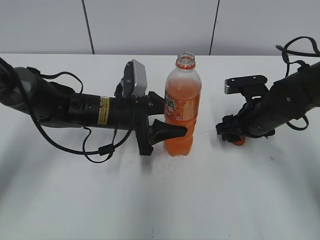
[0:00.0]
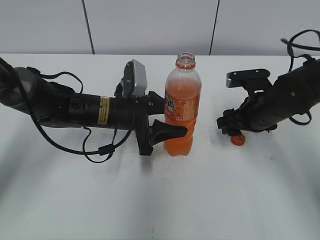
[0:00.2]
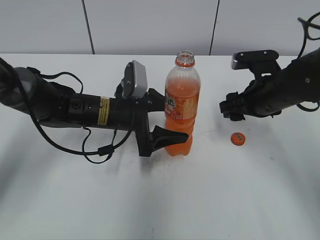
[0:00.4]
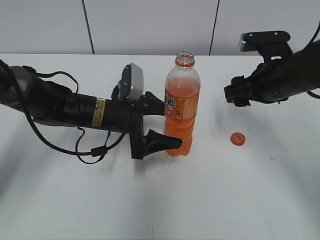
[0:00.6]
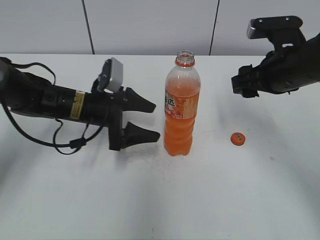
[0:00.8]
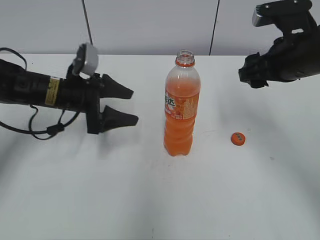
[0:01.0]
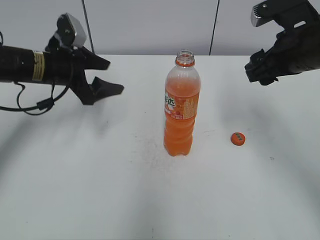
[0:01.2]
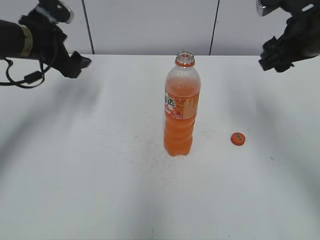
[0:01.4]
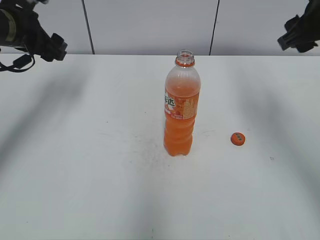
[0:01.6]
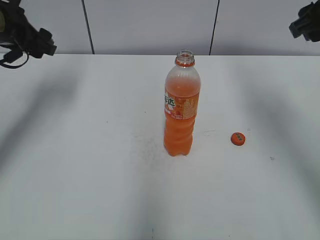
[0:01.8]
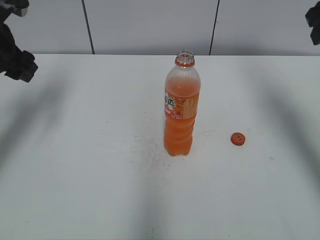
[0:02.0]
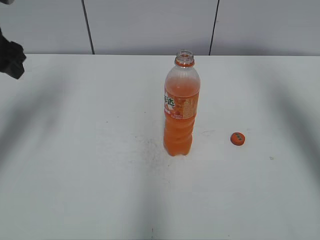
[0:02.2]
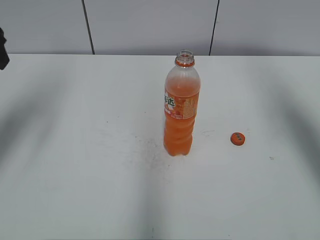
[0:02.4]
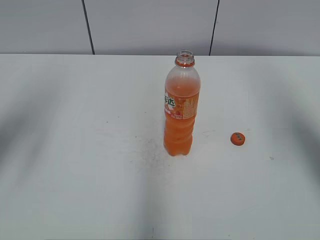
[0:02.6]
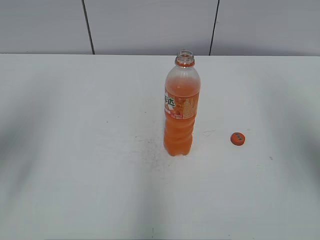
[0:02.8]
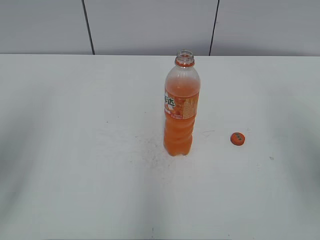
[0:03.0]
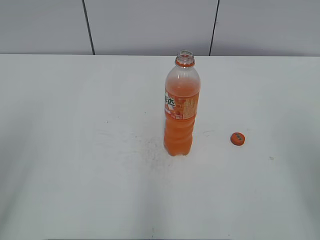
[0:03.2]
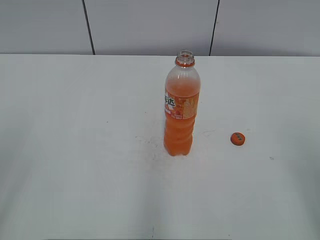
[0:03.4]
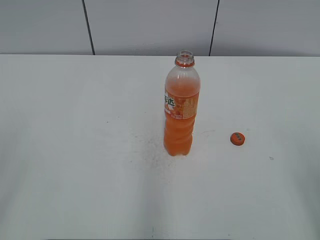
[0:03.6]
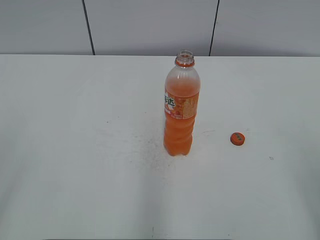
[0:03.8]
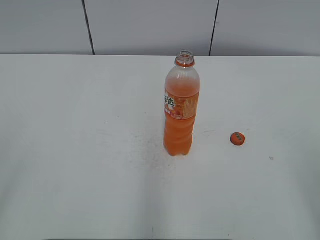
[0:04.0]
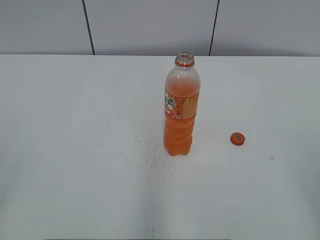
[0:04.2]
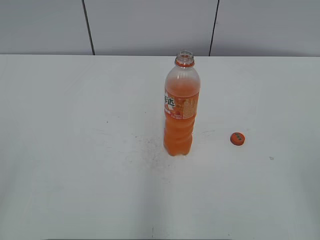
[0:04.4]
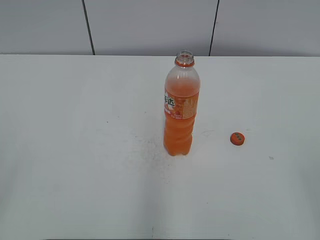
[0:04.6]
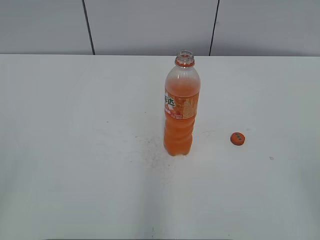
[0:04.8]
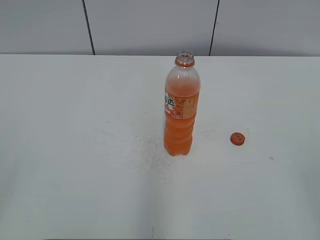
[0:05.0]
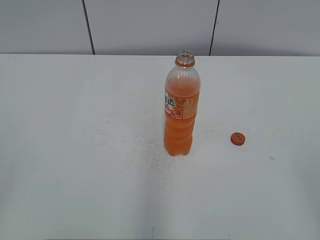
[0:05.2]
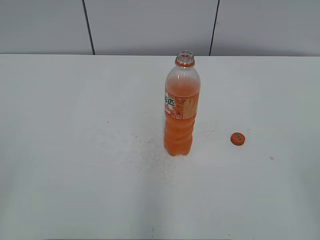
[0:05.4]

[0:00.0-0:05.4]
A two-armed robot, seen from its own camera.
0:00.0 to 0:01.4: The right gripper is displaced upward by roughly 15 cm, while the left gripper shifts some 20 cm to the left, upward and forward, and opens its fingers.
0:01.4 to 0:02.8: The left gripper moves backward and upward, some 20 cm; the right gripper heads backward, upward and to the right, covering about 15 cm.
0:02.8 to 0:04.0: The left gripper is displaced backward by some 20 cm. The right gripper shifts approximately 20 cm backward and downward.

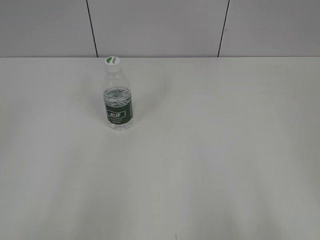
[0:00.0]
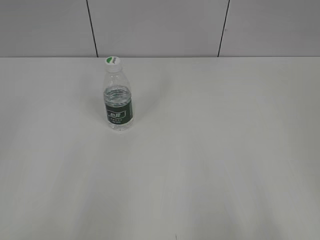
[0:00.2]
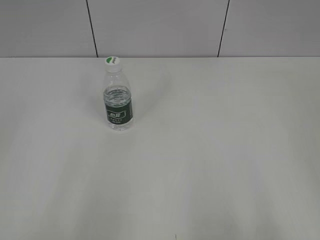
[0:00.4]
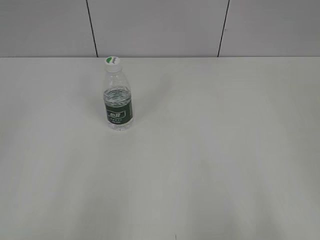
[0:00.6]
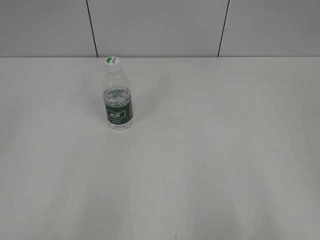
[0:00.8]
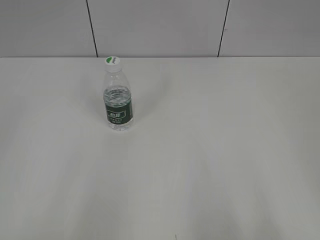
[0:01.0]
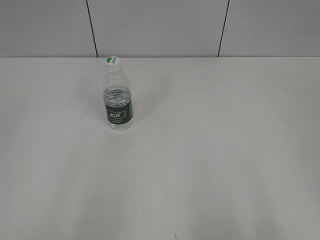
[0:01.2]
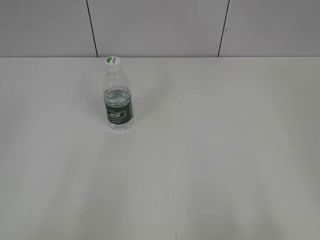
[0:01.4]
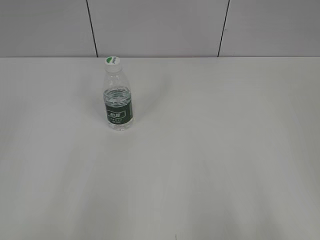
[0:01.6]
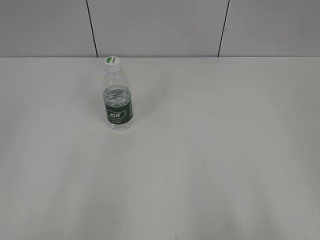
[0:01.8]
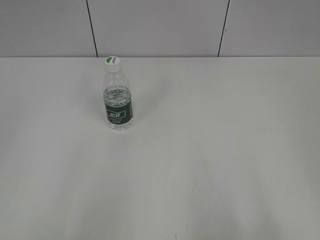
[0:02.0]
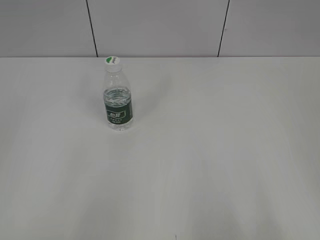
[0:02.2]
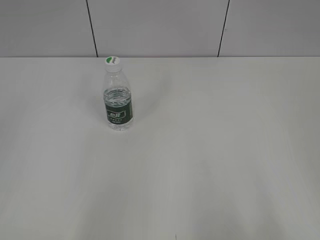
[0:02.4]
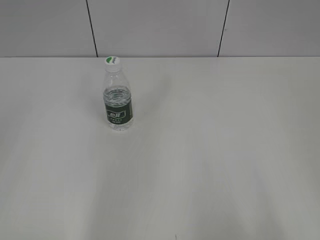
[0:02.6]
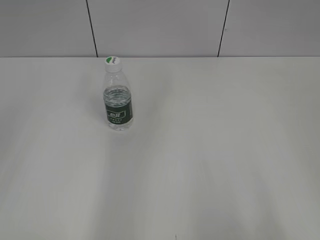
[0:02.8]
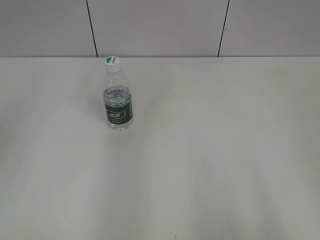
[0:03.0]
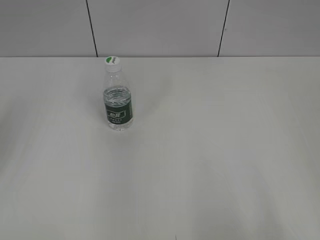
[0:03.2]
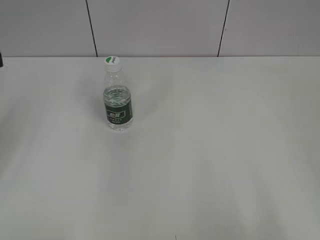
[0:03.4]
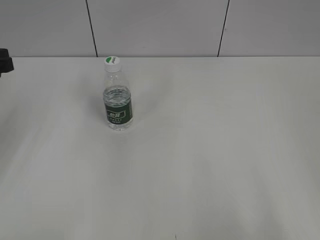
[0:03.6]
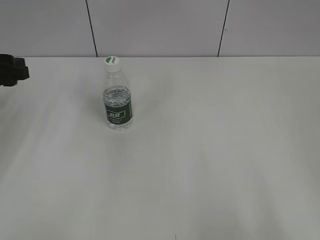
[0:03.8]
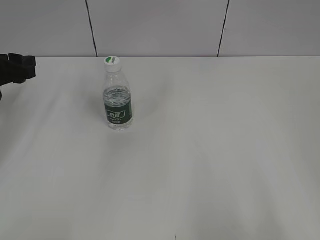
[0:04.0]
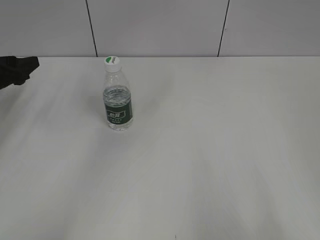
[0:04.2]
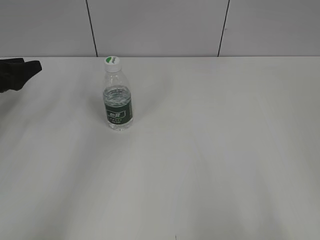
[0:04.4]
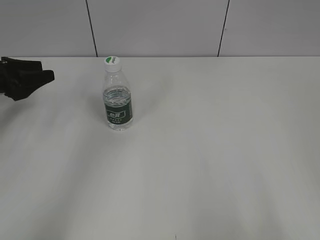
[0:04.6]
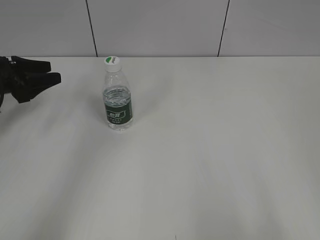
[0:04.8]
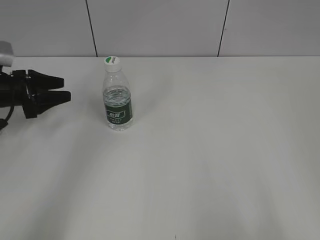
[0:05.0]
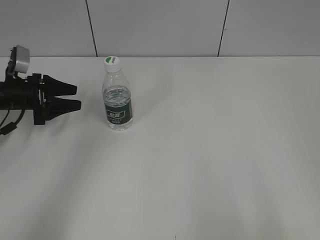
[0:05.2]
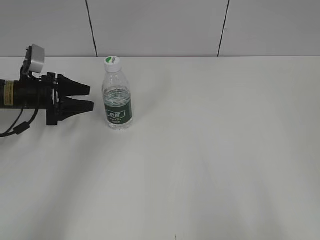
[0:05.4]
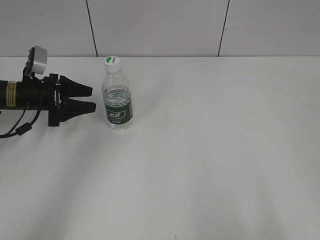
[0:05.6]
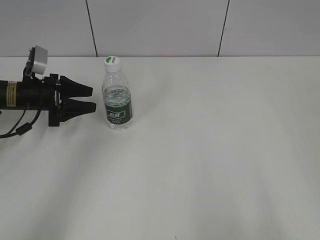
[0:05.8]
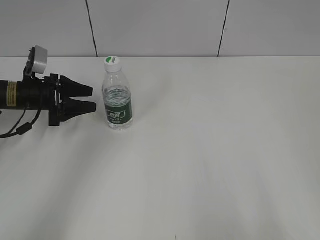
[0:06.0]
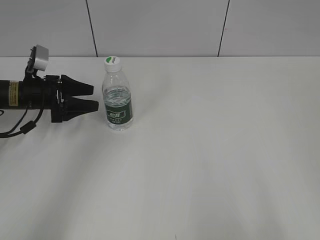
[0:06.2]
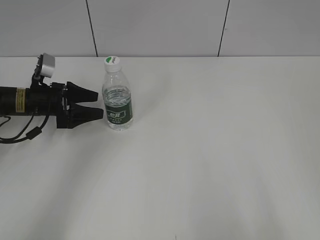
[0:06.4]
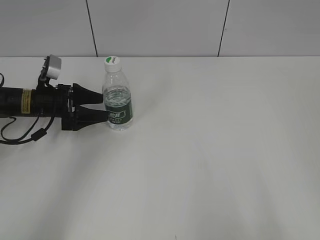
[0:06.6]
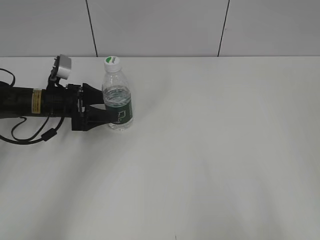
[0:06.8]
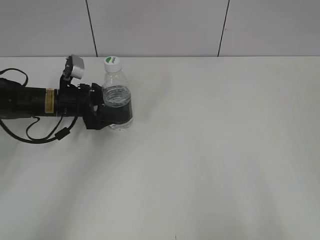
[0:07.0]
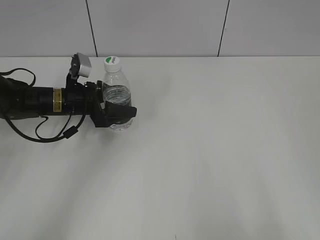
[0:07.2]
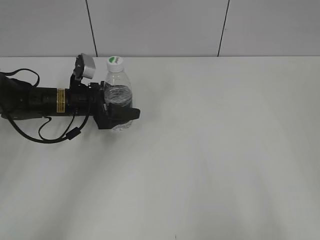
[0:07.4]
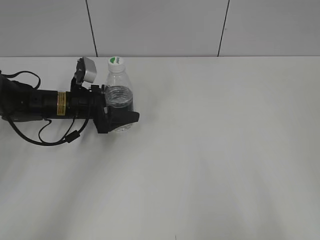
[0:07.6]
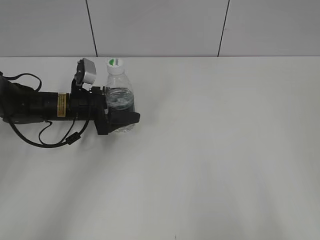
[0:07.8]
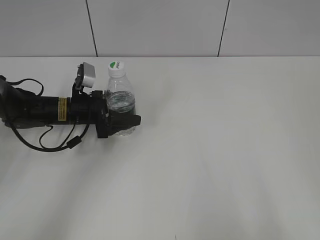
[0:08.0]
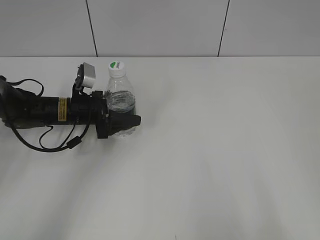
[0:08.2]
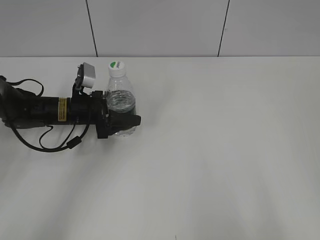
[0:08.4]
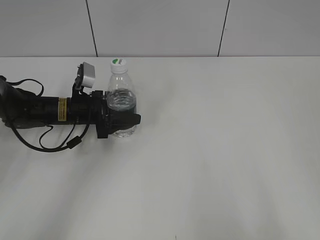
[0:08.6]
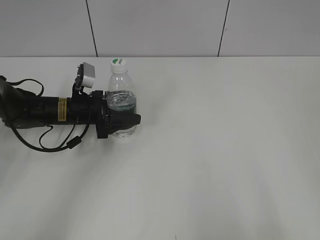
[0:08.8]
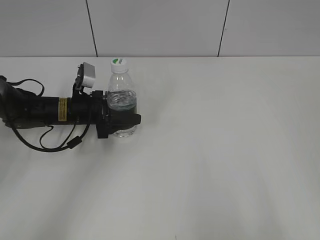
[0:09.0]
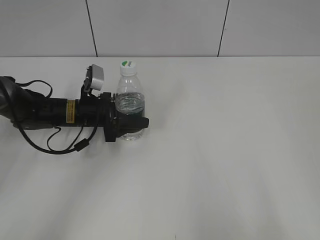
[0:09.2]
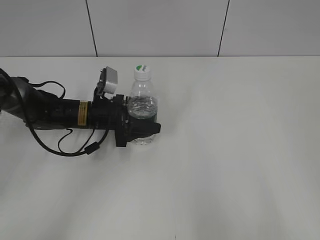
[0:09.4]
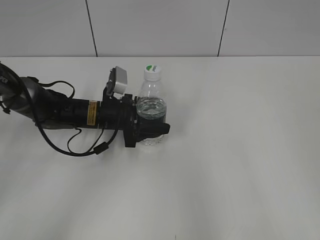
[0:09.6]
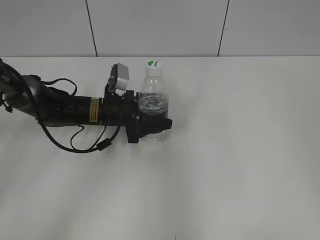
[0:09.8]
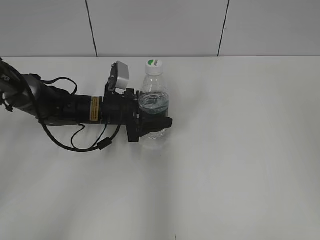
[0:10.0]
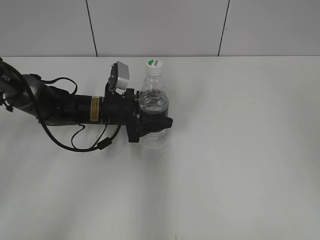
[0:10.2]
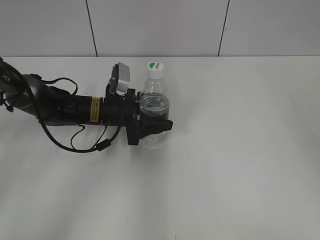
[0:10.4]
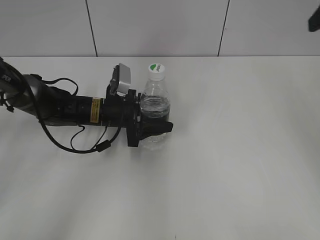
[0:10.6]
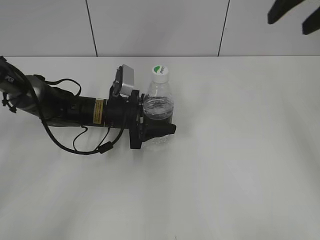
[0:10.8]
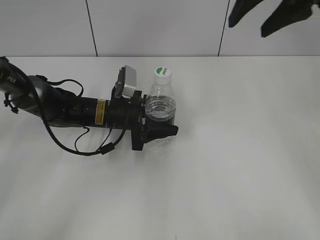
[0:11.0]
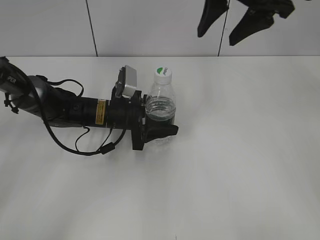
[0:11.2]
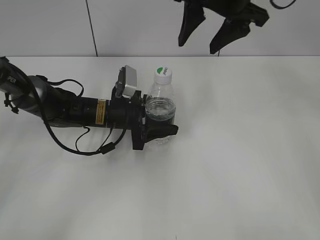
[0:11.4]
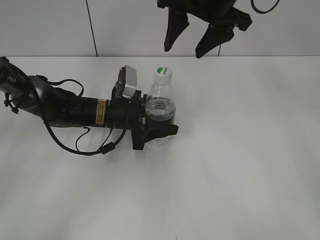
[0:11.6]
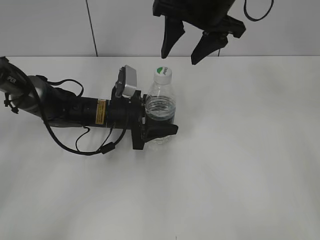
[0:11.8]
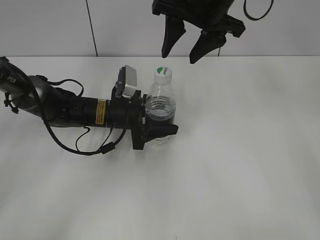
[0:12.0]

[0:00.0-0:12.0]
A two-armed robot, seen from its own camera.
Step, 0:00.0 to 0:08.6: Grasp the bottle and move it to the center of the table with the left gripper.
Step, 0:08.8 to 0:11.2: Lift the bottle and move it to the center of the table with the left gripper.
0:03.0 to 0:04.4: The left gripper moves forward and downward, some 30 cm.
0:04.4 to 0:06.0: The left gripper goes roughly 10 cm to the right.
0:06.0 to 0:07.6: The left gripper moves to the right, approximately 10 cm, and opens its fingers.
0:07.6 to 0:09.0: The left gripper closes up.
0:09.0 to 0:10.4: The left gripper heads to the right, covering approximately 5 cm. The right gripper travels forward and upward by about 25 cm.
0:10.4 to 0:12.0: The right gripper moves to the left, forward and downward, approximately 25 cm.

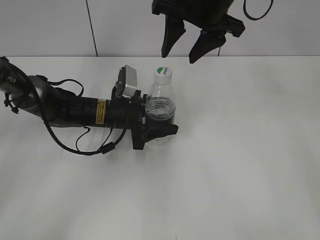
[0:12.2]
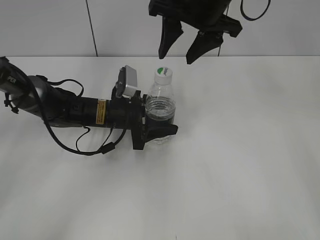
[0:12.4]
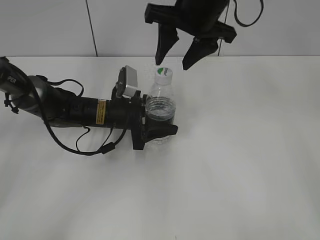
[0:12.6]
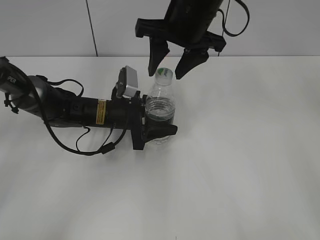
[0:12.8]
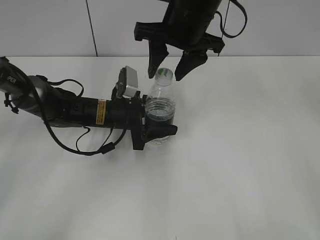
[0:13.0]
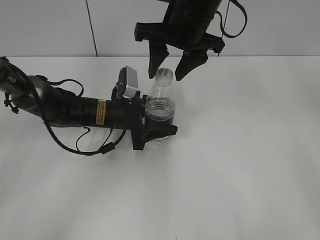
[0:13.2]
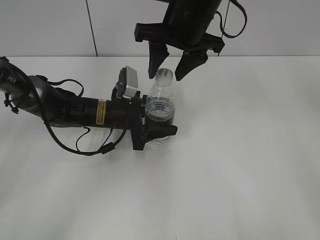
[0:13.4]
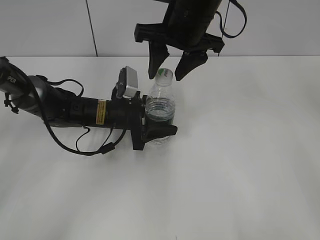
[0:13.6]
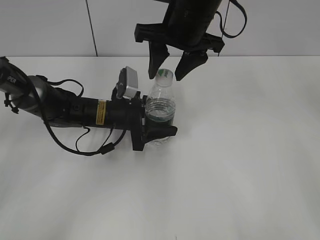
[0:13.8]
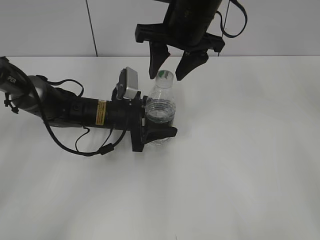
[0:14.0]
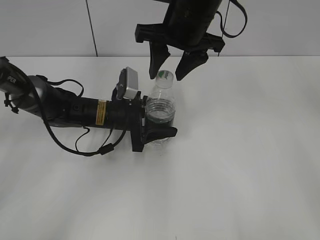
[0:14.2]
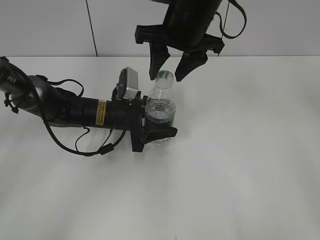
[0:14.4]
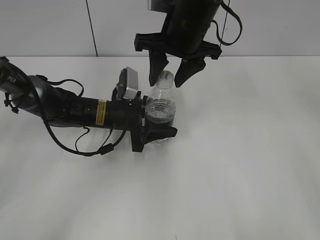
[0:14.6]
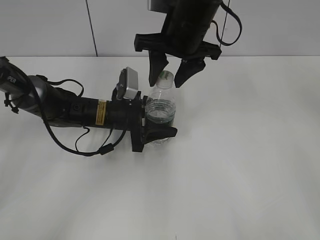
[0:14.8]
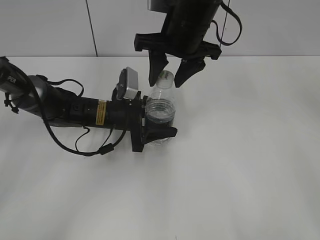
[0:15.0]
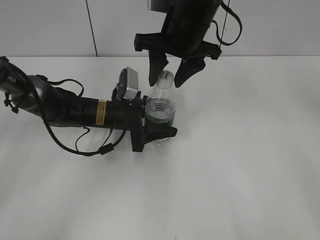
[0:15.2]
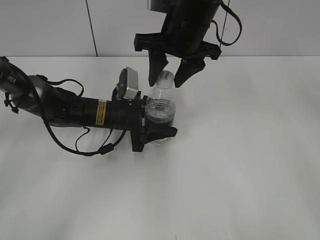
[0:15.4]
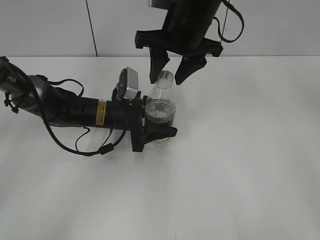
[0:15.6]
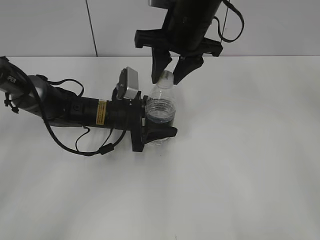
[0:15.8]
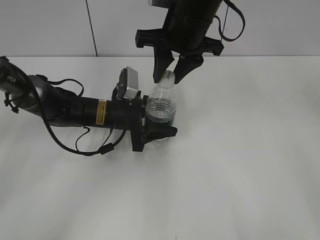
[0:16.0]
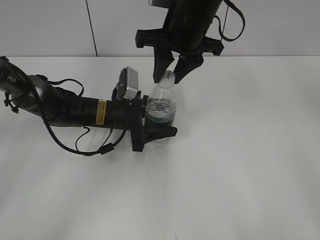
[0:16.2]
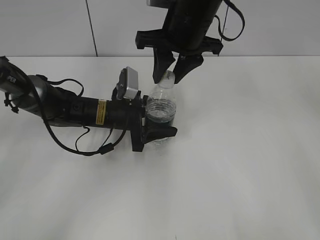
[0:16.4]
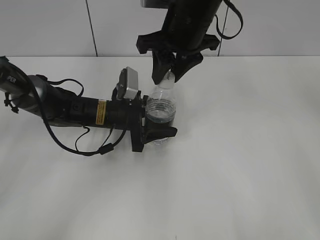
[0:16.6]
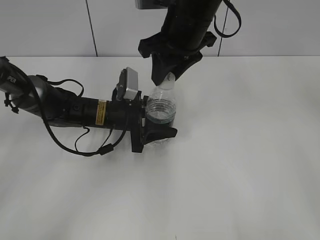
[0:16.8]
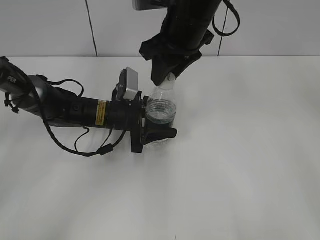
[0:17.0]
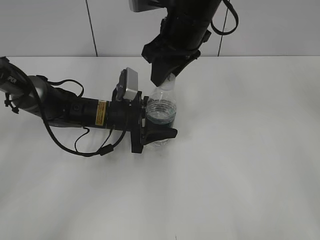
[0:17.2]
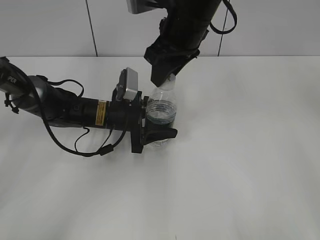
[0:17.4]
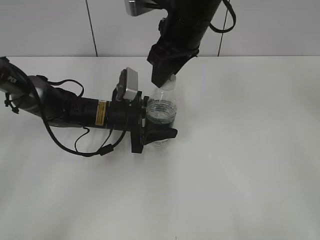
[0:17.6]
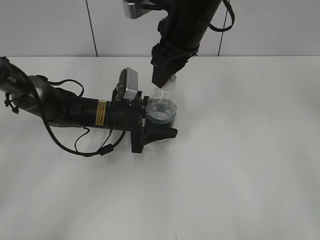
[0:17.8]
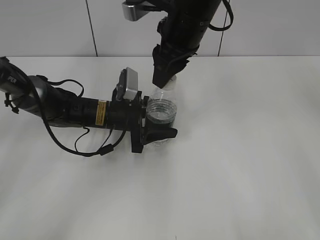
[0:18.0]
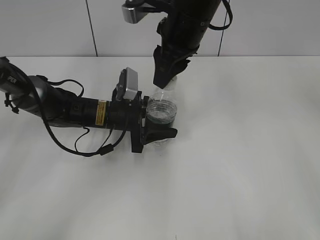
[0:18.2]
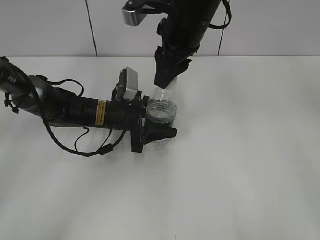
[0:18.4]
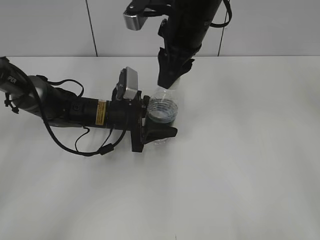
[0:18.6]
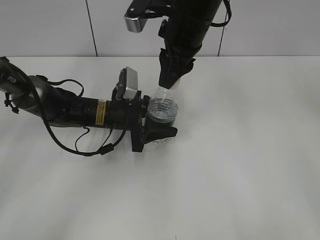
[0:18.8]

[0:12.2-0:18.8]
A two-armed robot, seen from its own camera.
0:12.2 to 0:15.4: There are only small adjustments of the grippers.
0:15.4 to 0:17.2: The right gripper closes.
